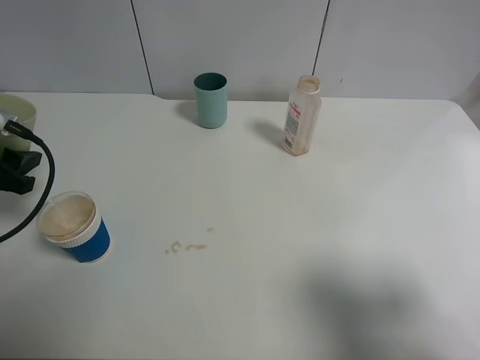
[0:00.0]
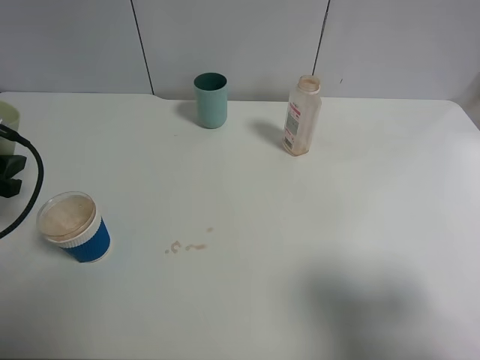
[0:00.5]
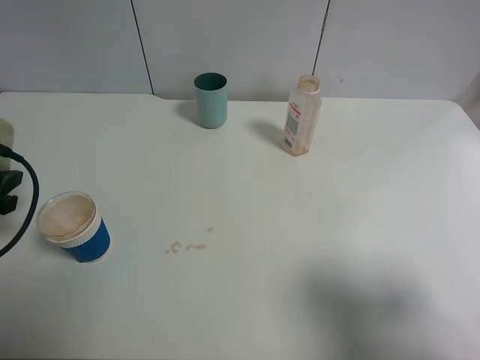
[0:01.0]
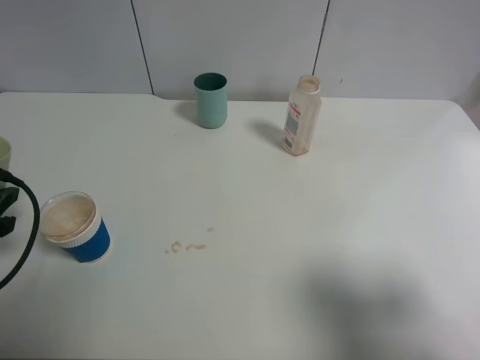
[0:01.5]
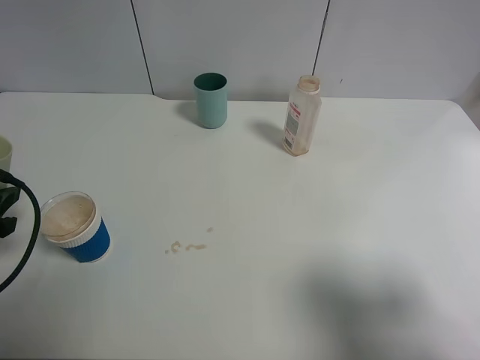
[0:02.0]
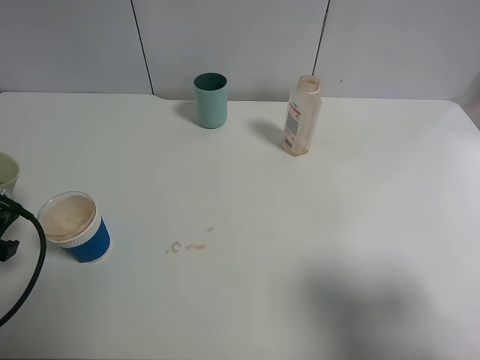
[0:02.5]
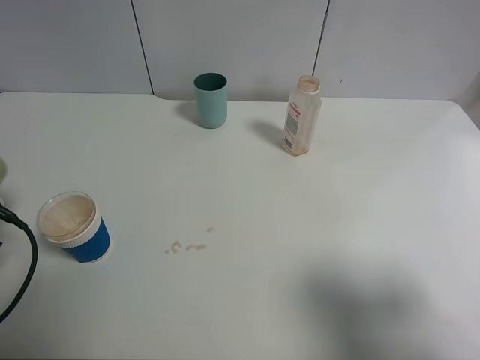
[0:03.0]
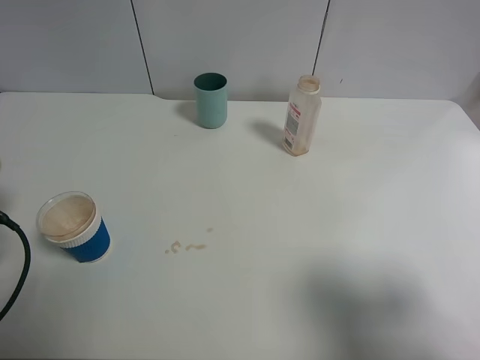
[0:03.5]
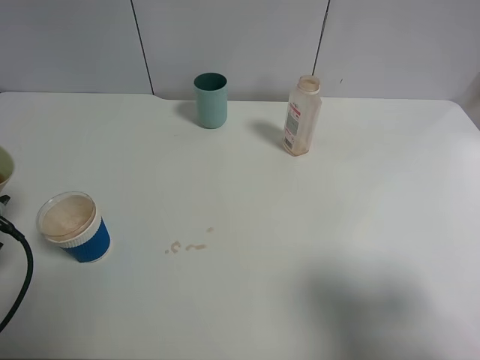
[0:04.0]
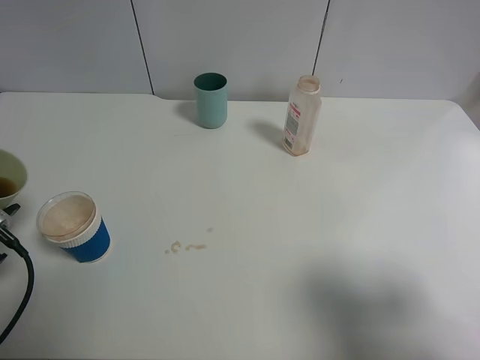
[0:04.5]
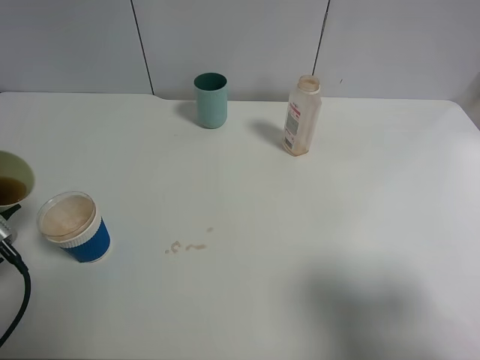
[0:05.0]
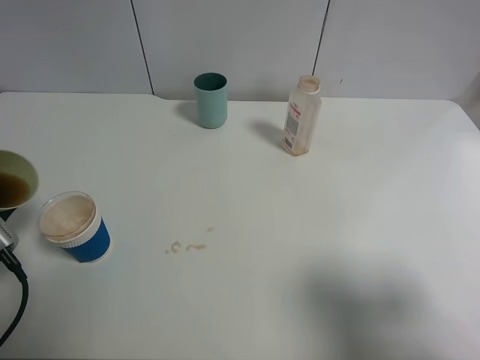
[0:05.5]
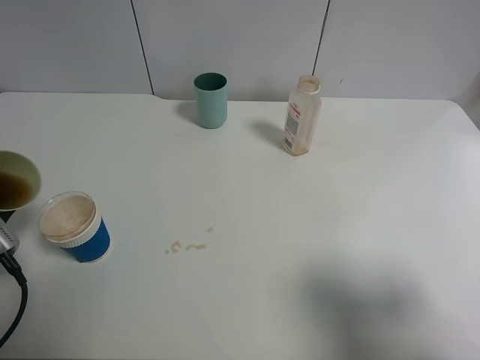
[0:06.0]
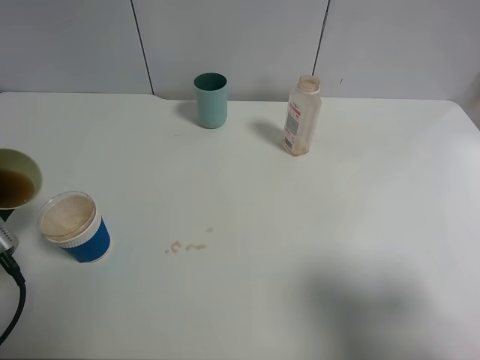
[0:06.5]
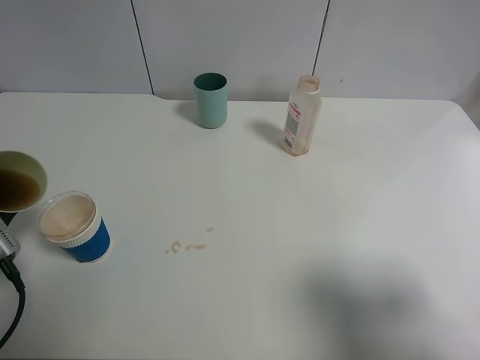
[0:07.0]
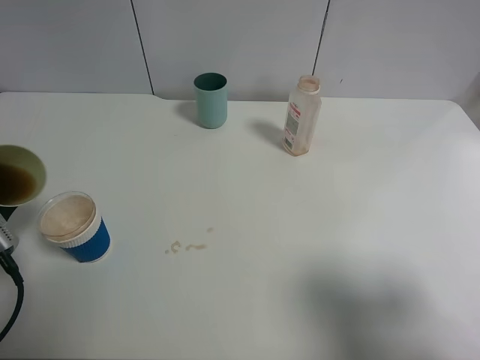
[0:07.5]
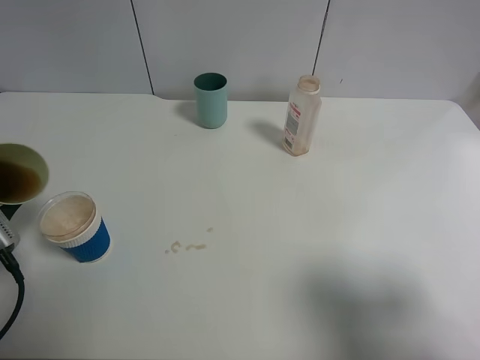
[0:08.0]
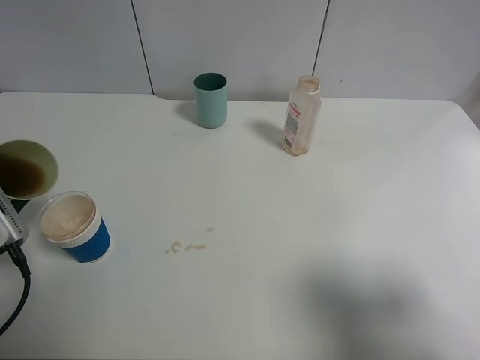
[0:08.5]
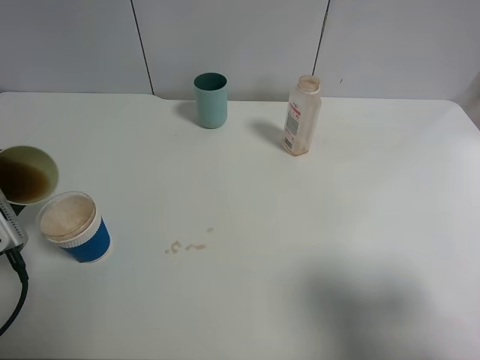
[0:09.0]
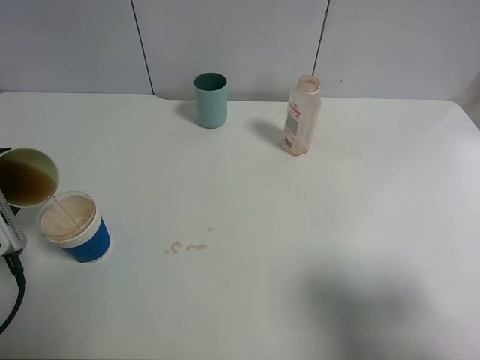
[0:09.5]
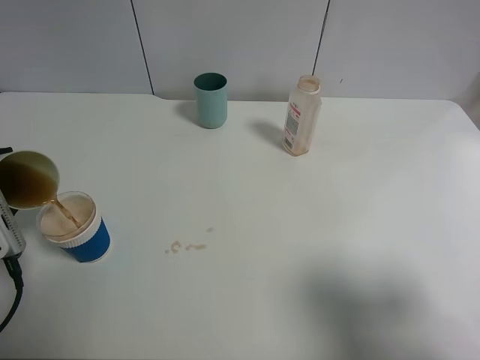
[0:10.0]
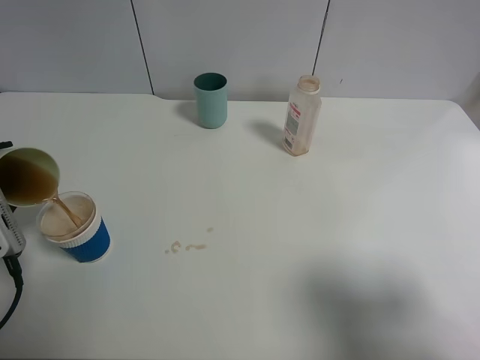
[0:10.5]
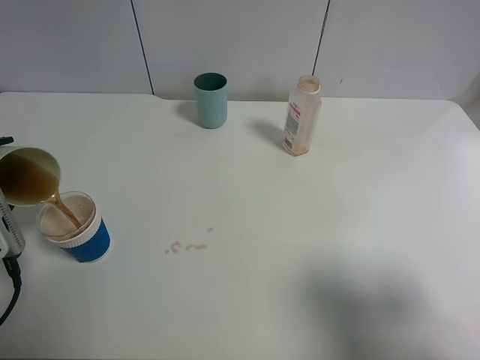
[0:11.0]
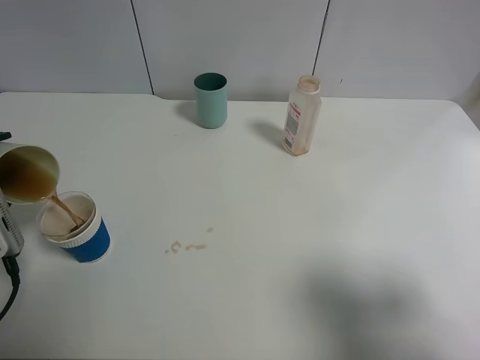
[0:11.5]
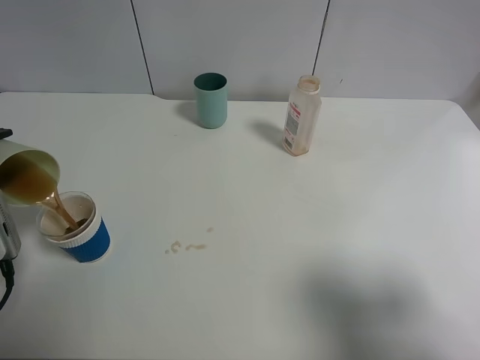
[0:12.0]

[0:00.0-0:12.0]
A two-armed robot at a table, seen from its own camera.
Task of the whole recording: use a clamp to hold the bottle of the drink, pour the beverage into a random cup, then clamp the cup containing the drink and pour the drink into another random cup.
0:00.0 to 0:02.0: The left gripper goes approximately 5 cm backward.
0:06.0 to 0:10.0: The grippers make only small movements.
0:10.0 to 0:12.0: The grippers make only small movements.

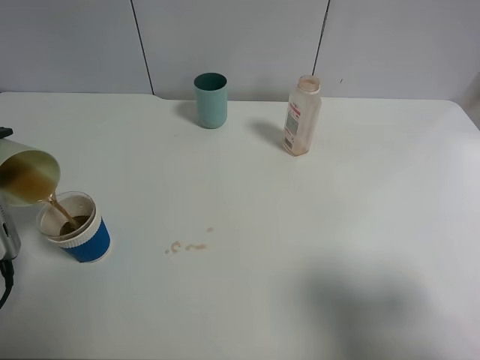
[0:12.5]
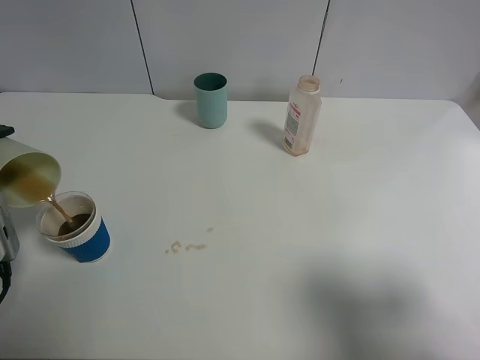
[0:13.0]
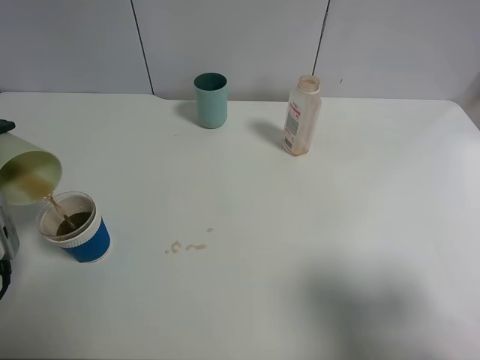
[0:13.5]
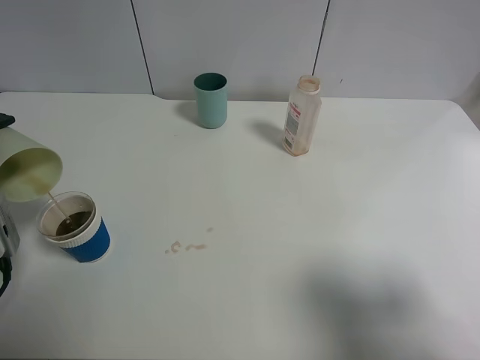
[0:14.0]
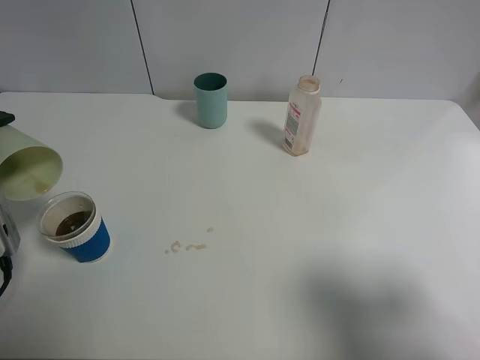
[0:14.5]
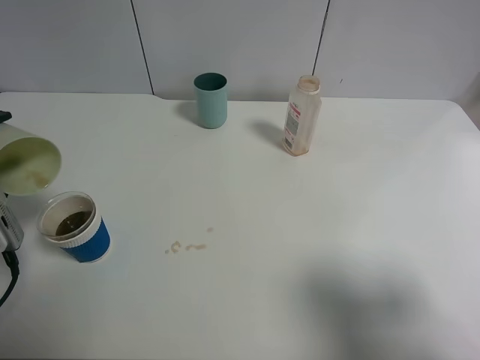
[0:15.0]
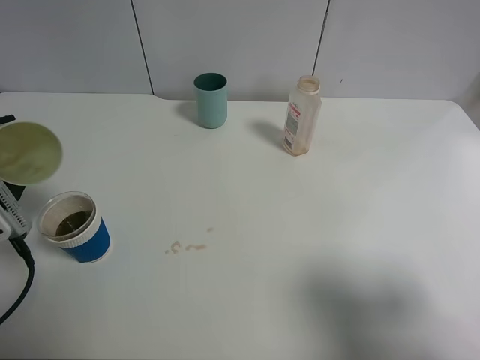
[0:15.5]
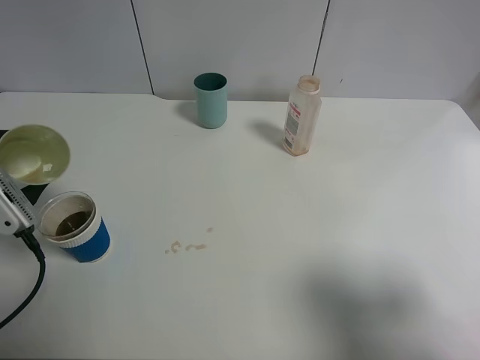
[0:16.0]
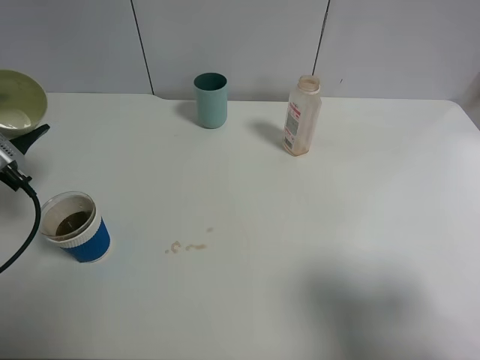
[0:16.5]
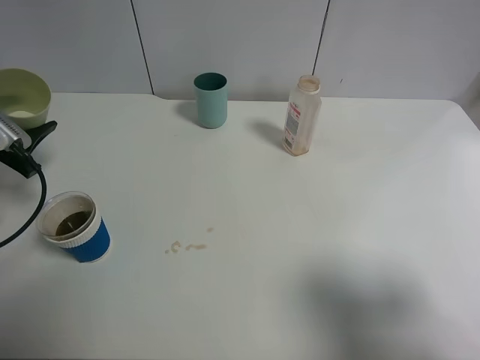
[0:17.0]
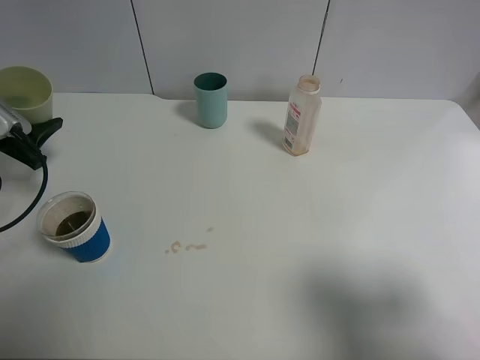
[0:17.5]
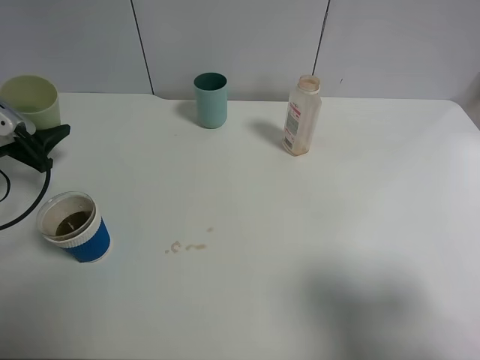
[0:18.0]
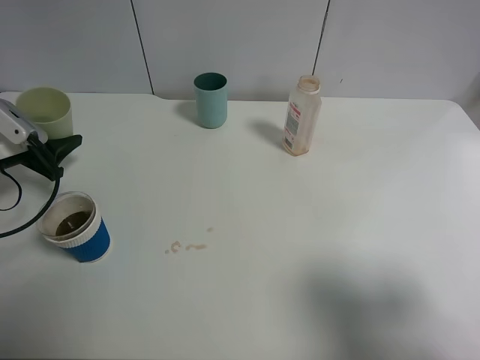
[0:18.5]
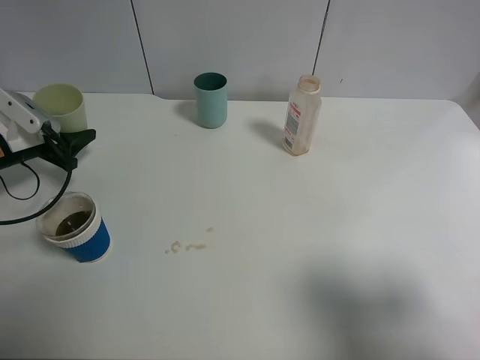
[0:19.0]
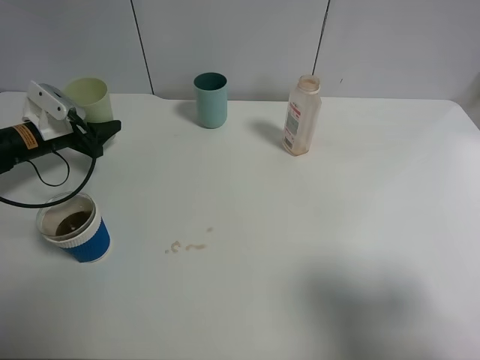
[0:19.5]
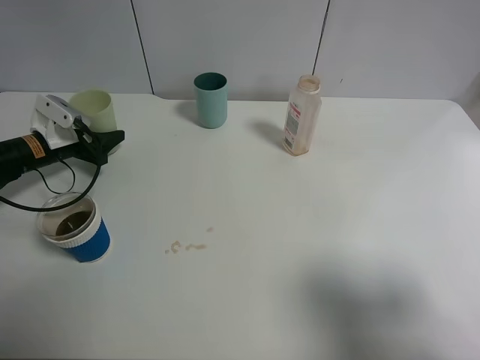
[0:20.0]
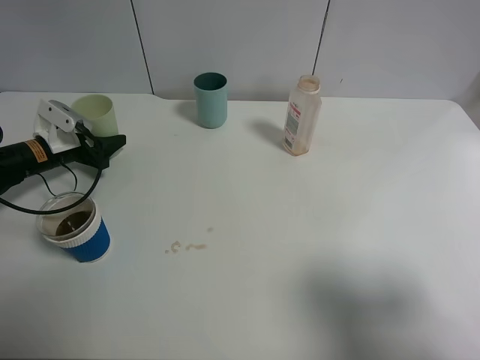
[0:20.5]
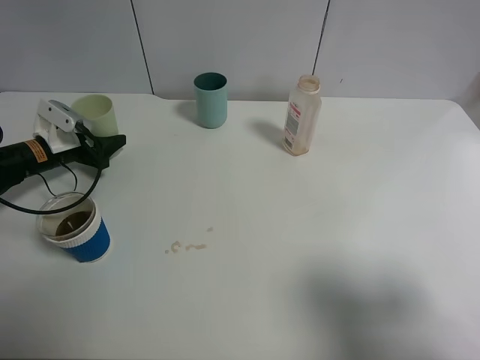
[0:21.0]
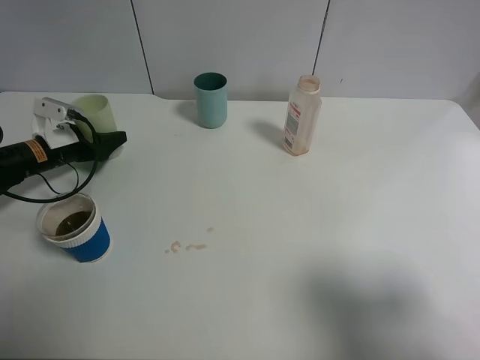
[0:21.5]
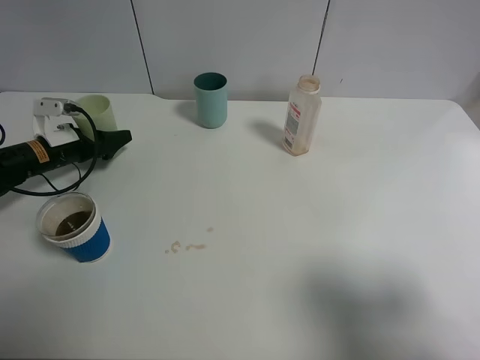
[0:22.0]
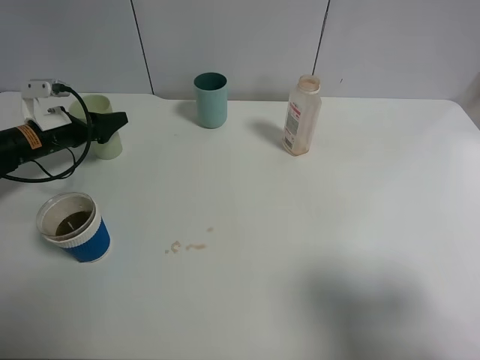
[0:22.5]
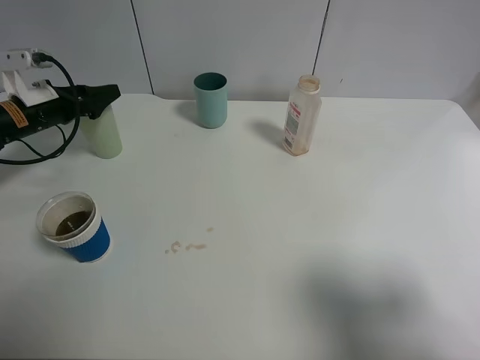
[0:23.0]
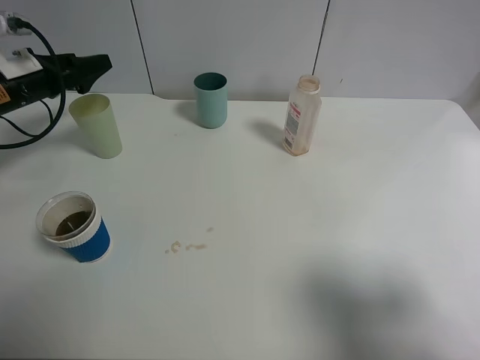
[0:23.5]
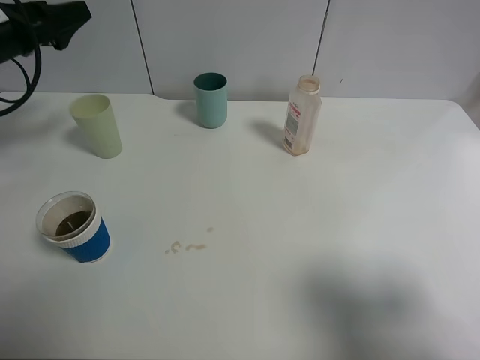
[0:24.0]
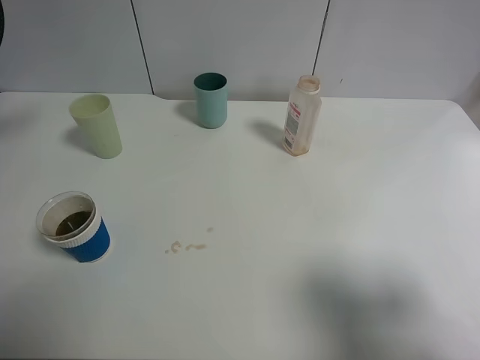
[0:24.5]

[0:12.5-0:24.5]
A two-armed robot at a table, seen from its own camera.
Task of the whole recording: use a clamp to hold the bottle of the drink, pour the beverage into a random cup, then clamp the cup containing the drink and pour the drink into another random cup.
Step, 0:12.5 to 0:15.5: Pour the drink into the paper cup with left gripper.
Step, 0:16.0 to 0:22.5: Place the green plastic cup on the table with left gripper.
0:12.5 to 0:14.5: The grippers stay close to where they were, moving slightly.
0:14.5 to 0:16.5: The left gripper heads forward, covering some 5 cm.
0:16.5 to 0:18.5: The left gripper goes roughly 10 cm forward and downward.
0:18.5 to 0:20.5: The left gripper travels forward and downward by roughly 10 cm.
0:20.5 to 0:22.5: The left gripper opens.
0:22.5 to 0:24.5: The left gripper shifts some 20 cm upward.

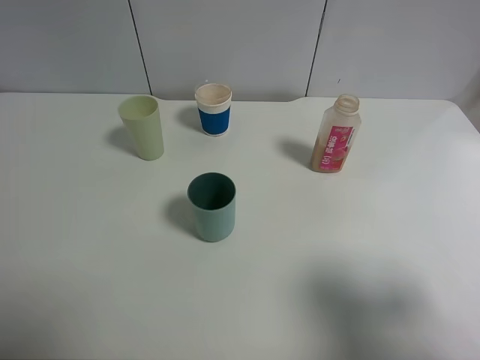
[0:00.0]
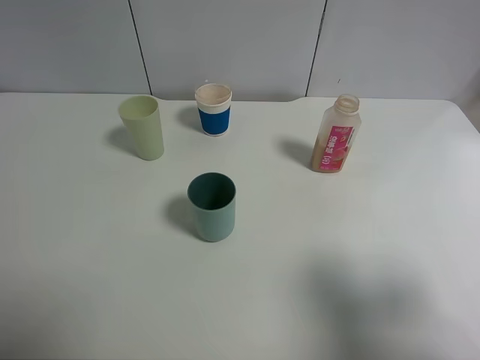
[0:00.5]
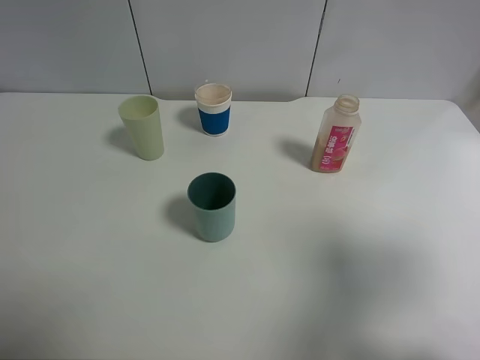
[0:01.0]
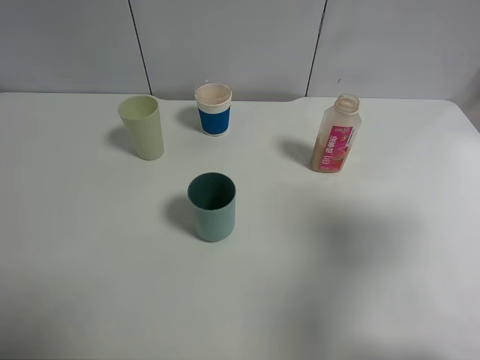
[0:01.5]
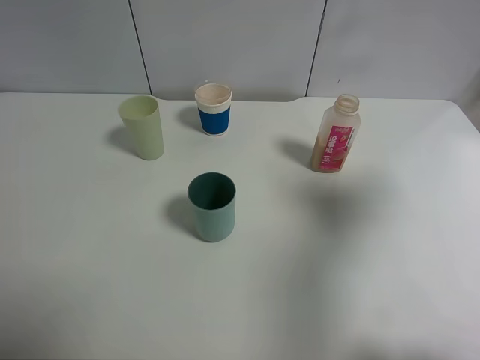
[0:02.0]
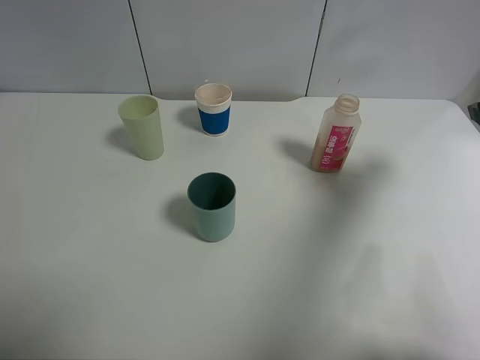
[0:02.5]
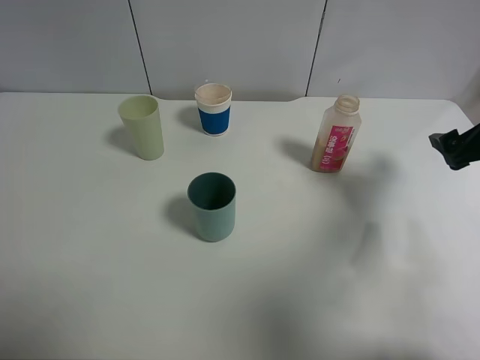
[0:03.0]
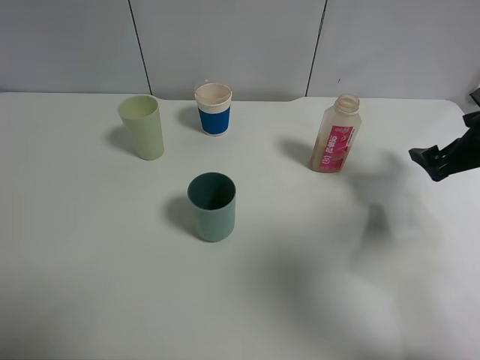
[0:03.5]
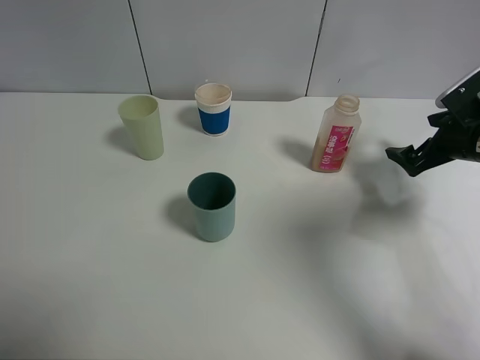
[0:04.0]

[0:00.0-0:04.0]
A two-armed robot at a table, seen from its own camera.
Task of the whole recording: use a clamp to hold the bottle of the drink, pour the beverage into a random cup, then clamp the cup containing the drink and pour the drink into another random cup.
0:00.0 to 0:02.0: The right gripper is displaced forward by roughly 15 cm.
0:02.0 to 0:04.0: The right gripper travels downward and forward by roughly 25 cm.
